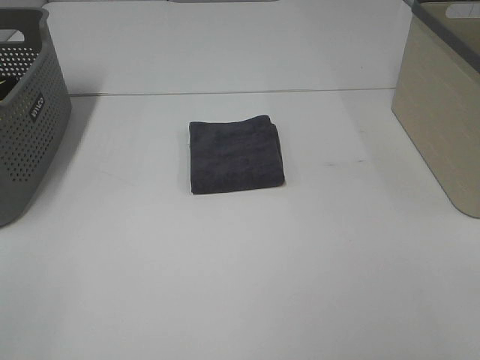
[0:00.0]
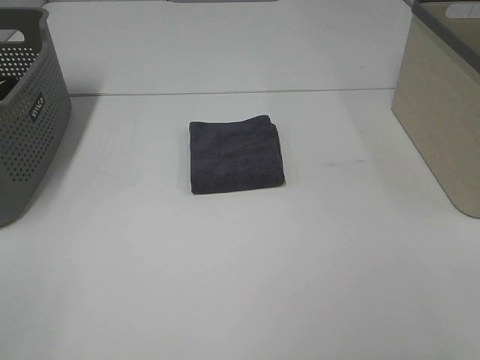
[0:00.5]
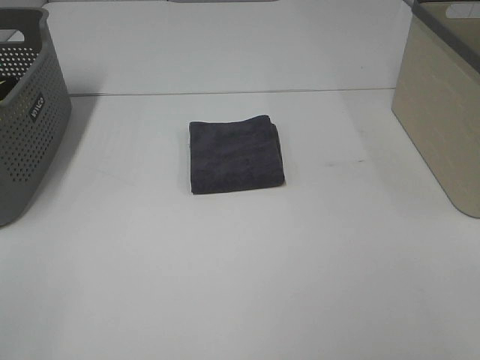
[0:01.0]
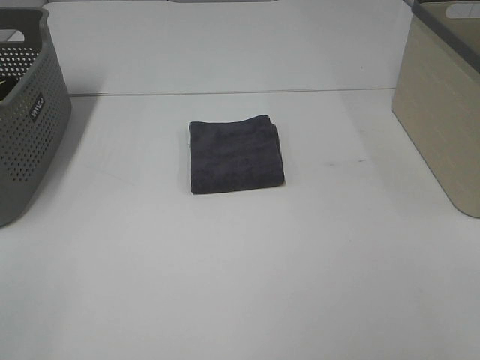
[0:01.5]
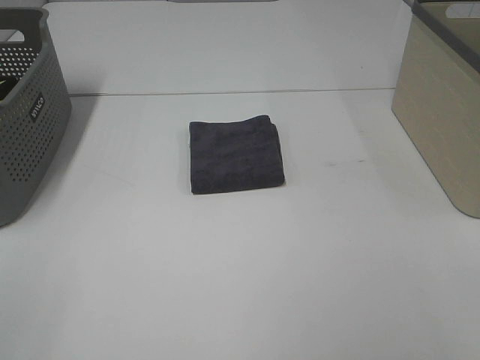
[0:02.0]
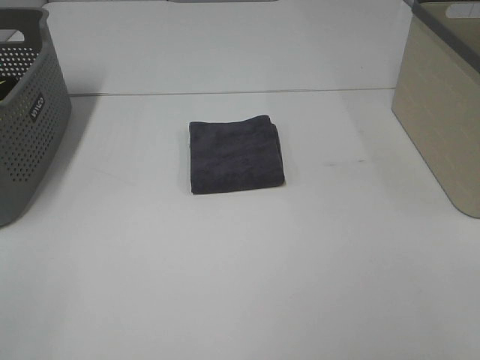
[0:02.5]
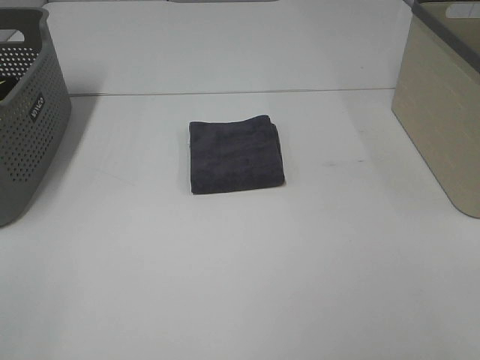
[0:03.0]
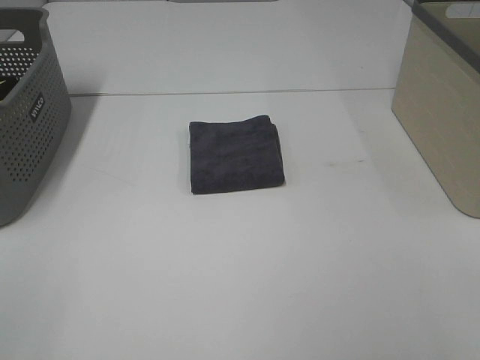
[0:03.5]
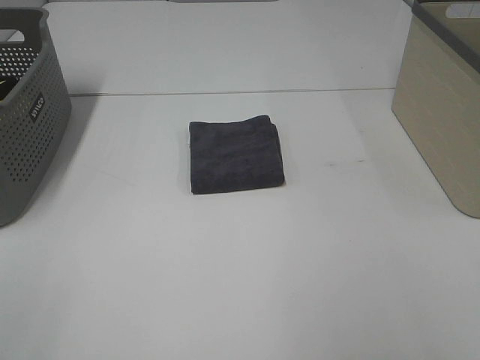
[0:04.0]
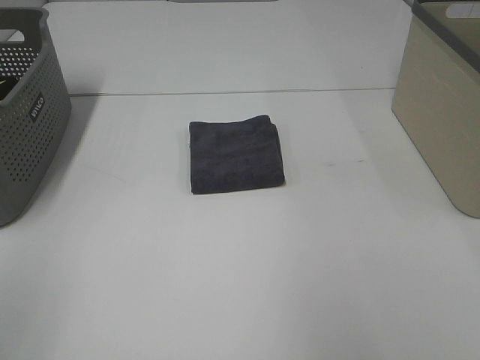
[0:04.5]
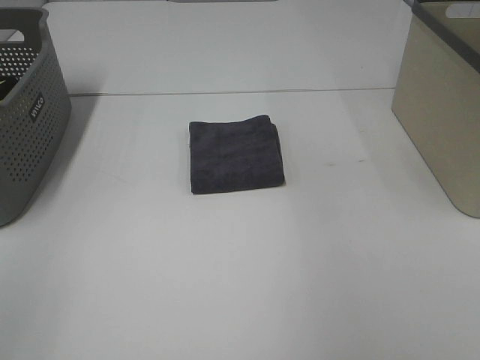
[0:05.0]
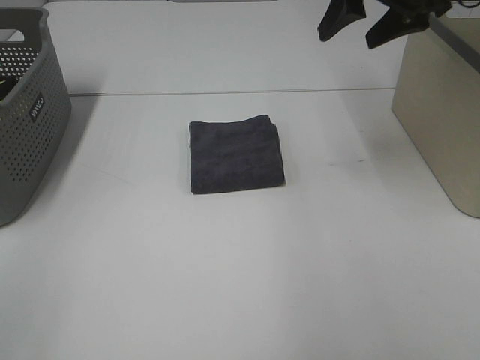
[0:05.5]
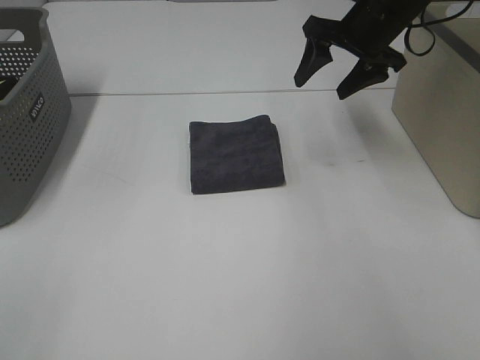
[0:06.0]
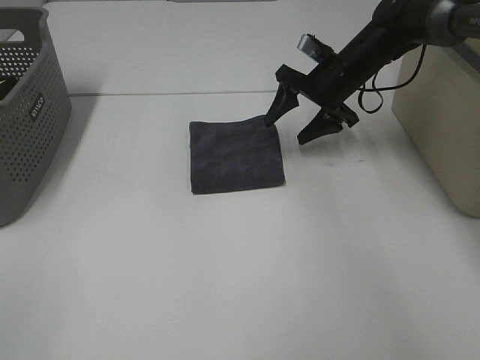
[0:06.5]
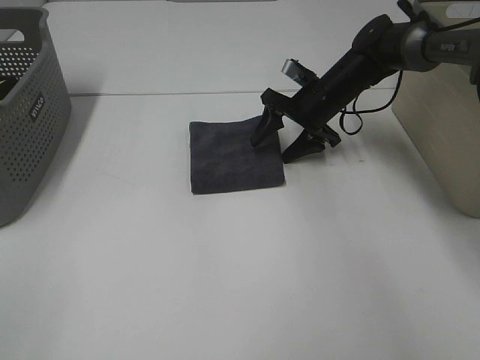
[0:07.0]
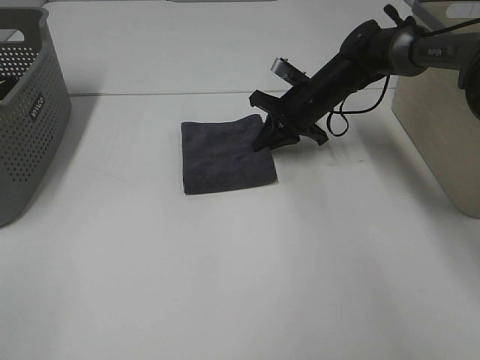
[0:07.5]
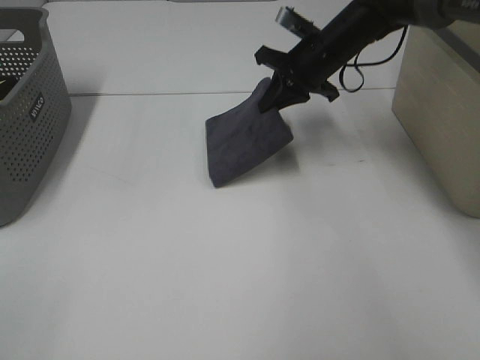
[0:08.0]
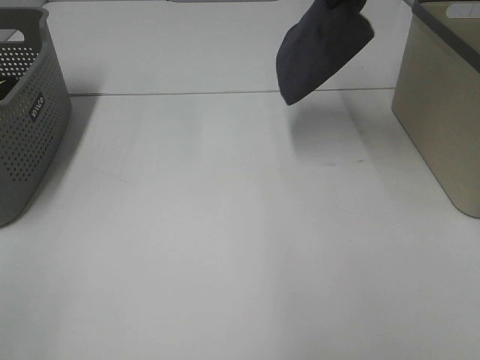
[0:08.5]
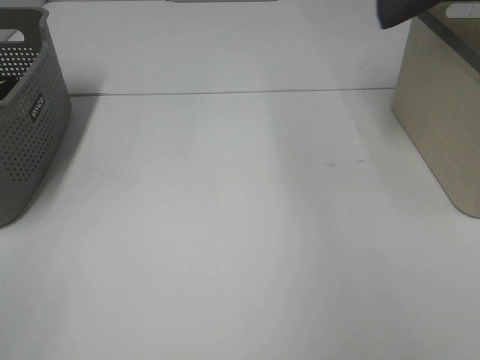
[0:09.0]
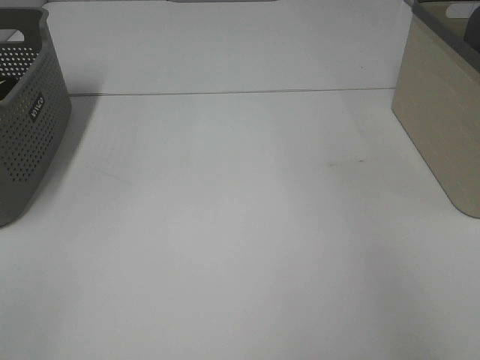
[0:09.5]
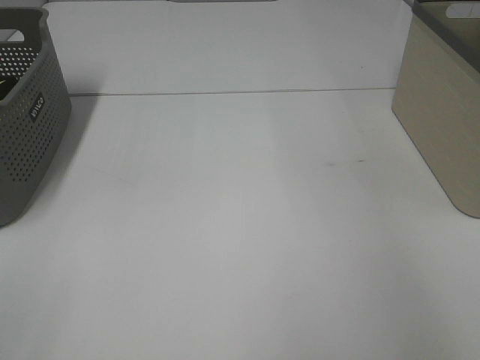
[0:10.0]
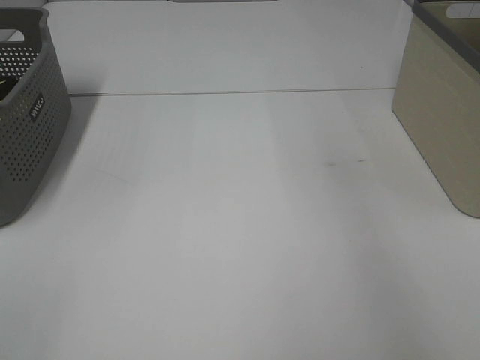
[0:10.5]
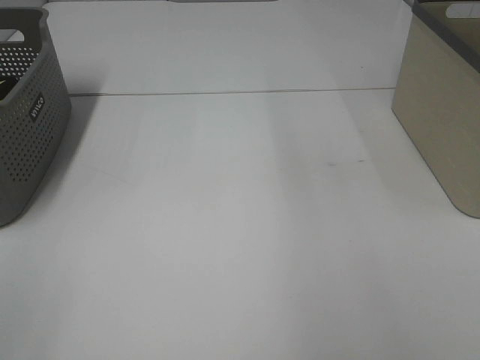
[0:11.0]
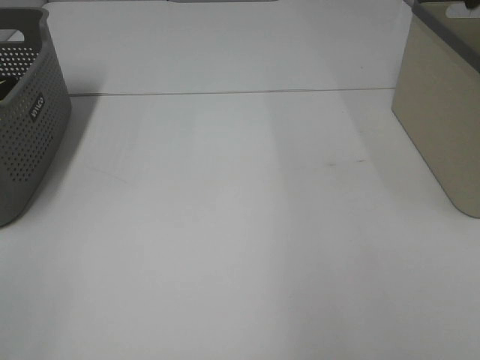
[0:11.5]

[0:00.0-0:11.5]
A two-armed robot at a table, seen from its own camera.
Step, 0:00.0 to 0:07.5: Right hand: grab the folded grey towel.
Step, 0:08.0 to 0:10.0: Right hand: place the grey towel in right basket.
0:00.0 to 0:02.0: Both grippers stay put.
0:04.0 to 0:06.0: The right gripper shifts roughly 40 cm forward.
0:06.0 to 0:07.5: The right gripper heads downward and to the left, covering about 15 cm, and closes.
0:07.5 to 0:09.5: The right gripper is displaced upward and to the right by approximately 40 cm.

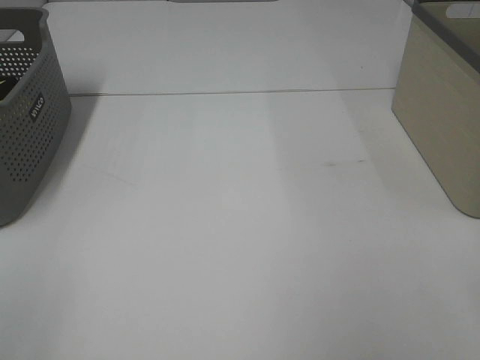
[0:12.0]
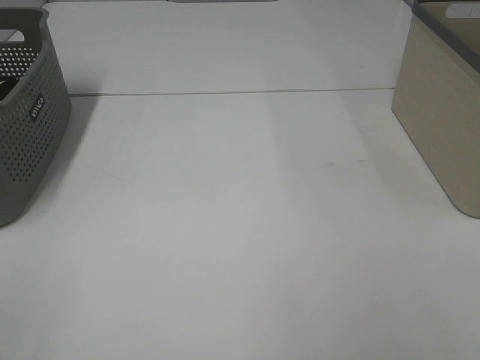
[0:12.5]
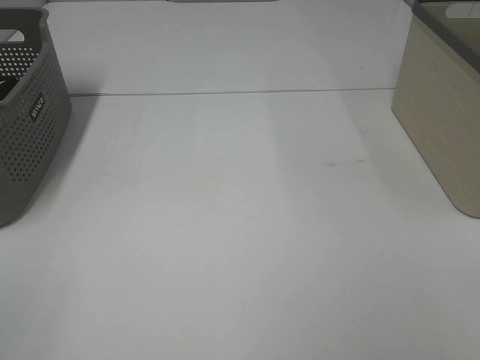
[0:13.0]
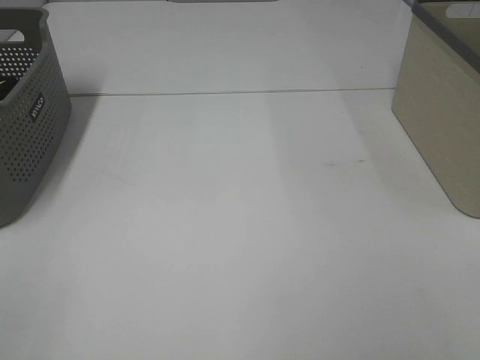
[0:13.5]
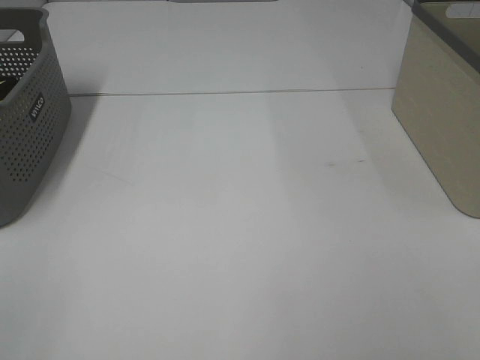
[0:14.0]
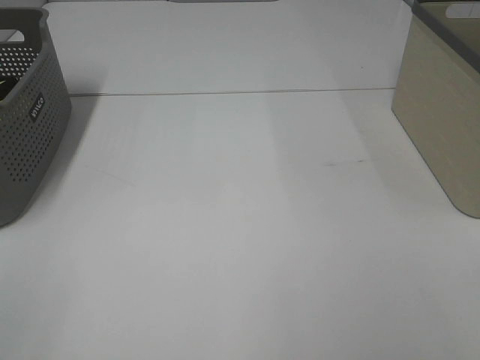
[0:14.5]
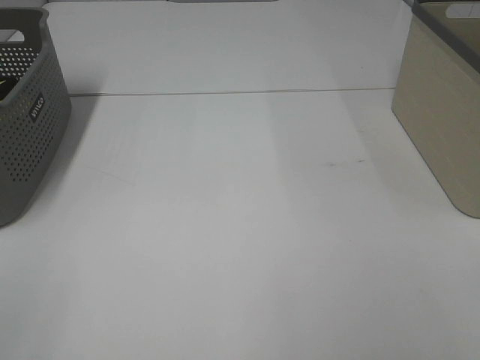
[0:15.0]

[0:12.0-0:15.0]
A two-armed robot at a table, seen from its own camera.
0:13.5 to 0:15.0: The two grippers keep their place.

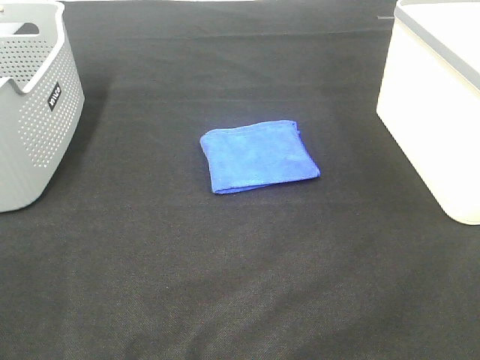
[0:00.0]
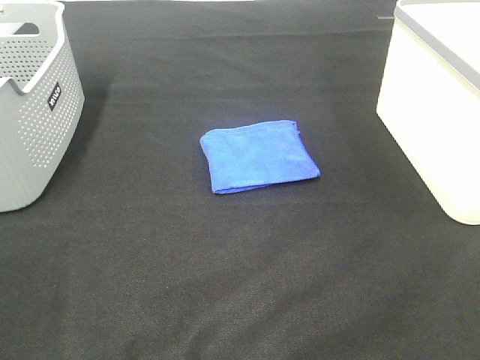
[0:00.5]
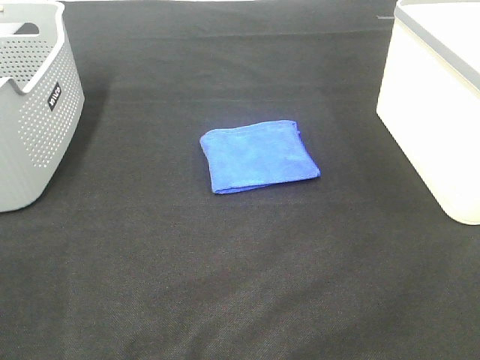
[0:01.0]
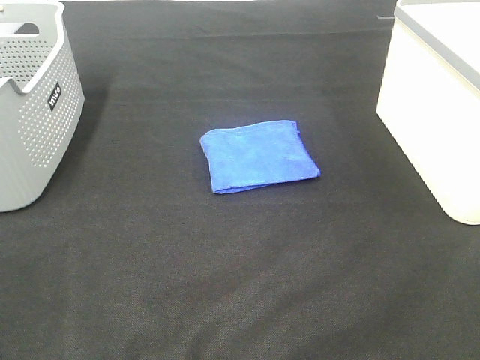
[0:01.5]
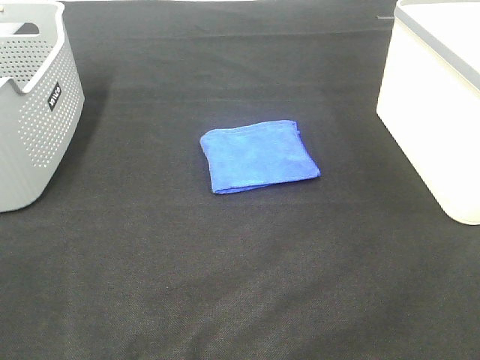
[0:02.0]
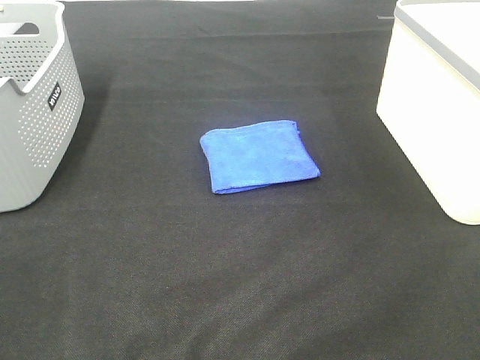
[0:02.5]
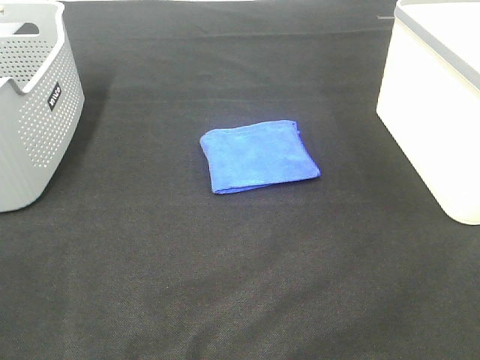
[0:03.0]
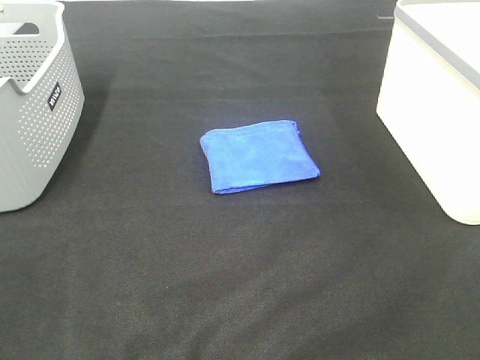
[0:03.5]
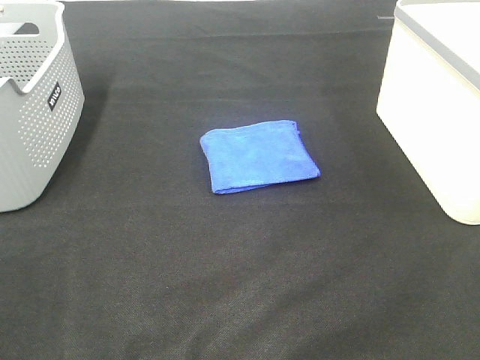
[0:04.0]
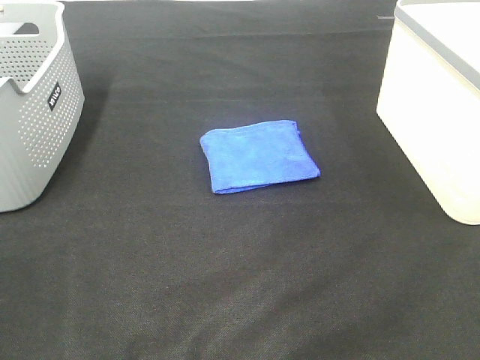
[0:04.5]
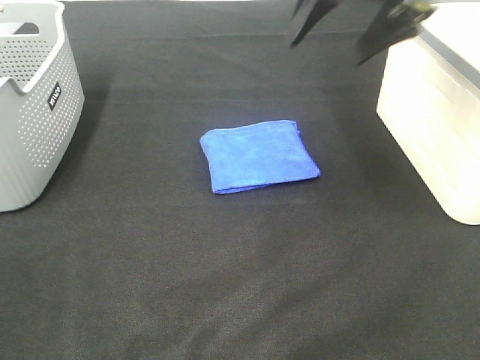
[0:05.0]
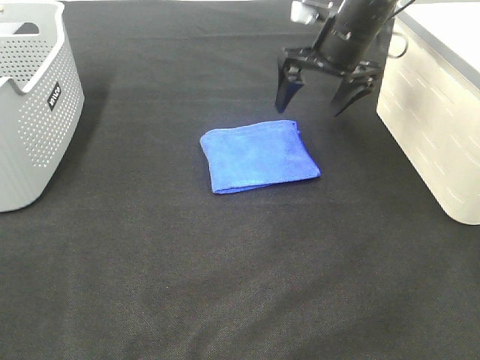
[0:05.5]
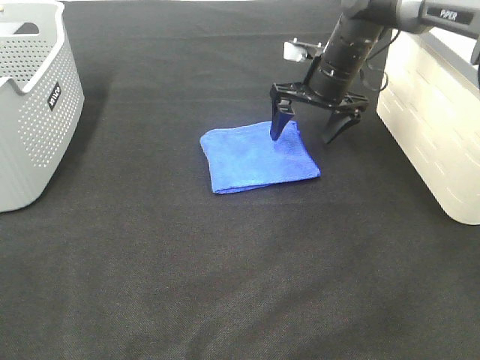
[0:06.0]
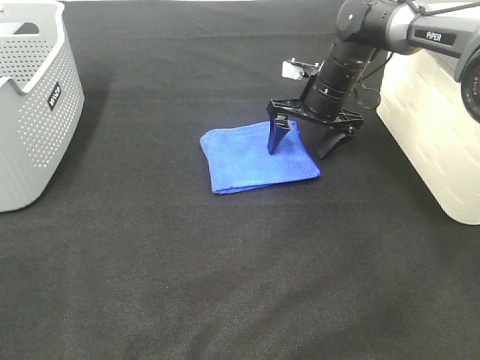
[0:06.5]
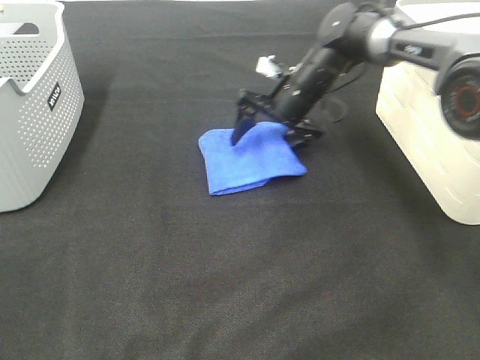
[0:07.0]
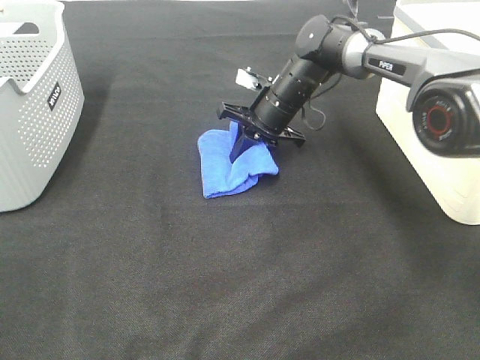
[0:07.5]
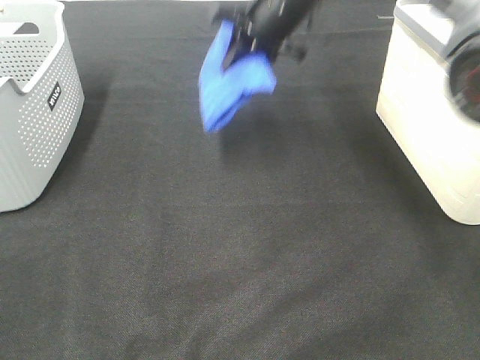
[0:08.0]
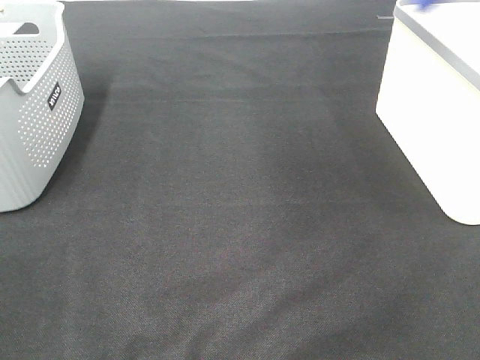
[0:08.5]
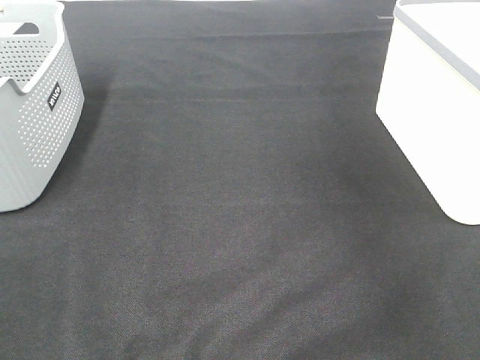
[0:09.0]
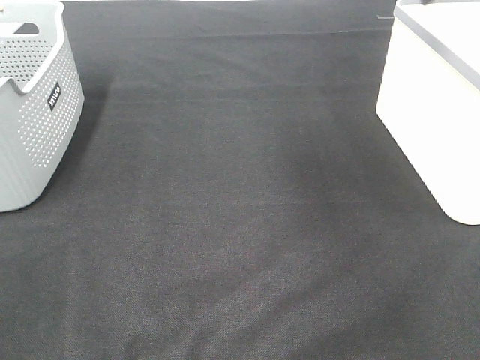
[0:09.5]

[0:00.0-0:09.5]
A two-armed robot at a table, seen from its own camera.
Step, 0:00.0 to 0:07.0: Right hand: grab the folded blue towel.
Step, 0:07.5 to 0:09.0: Right hand: place the blue towel in right basket.
0:00.0 to 0:02.0: Neither gripper changes place.
0:04.0 to 0:05.5: The right gripper travels forward and downward by approximately 40 cm.
0:05.5 to 0:07.5: The right gripper goes roughly 15 cm downward and to the left, and closes its fingers.
0:07.5 to 0:09.5: The right gripper is displaced upward and to the right by approximately 35 cm, and opens.

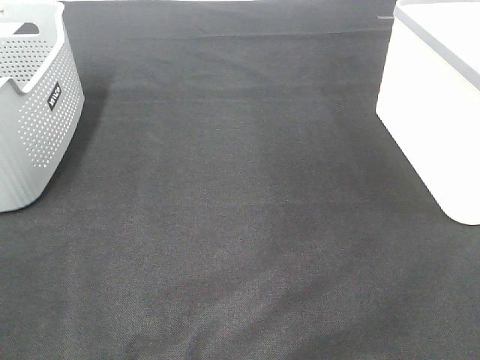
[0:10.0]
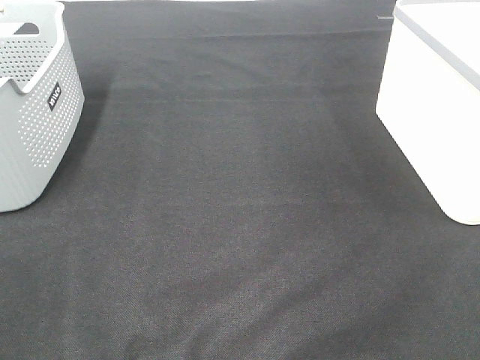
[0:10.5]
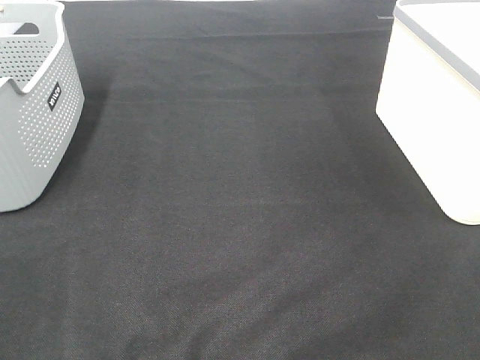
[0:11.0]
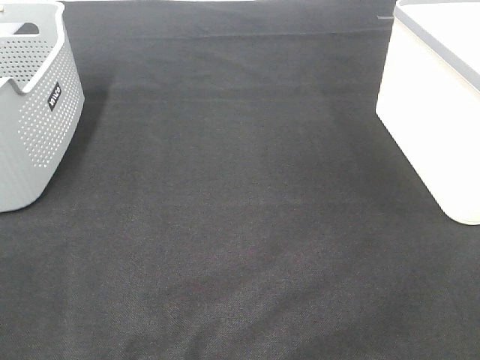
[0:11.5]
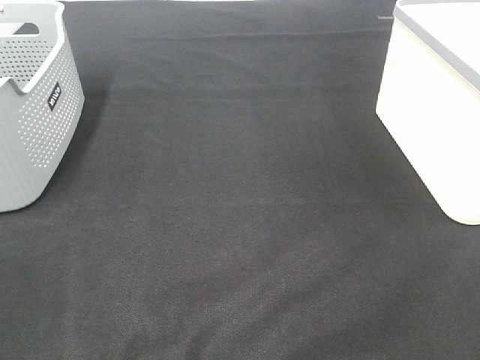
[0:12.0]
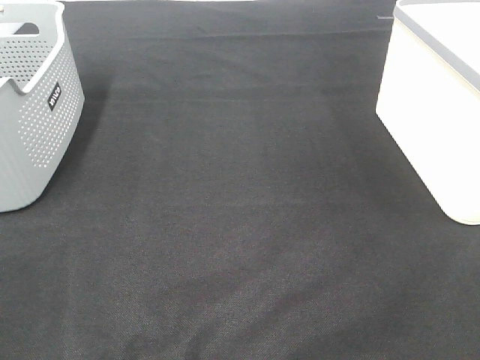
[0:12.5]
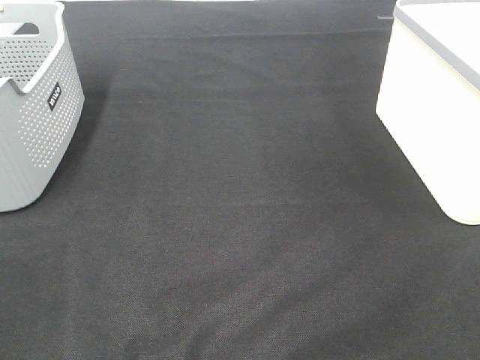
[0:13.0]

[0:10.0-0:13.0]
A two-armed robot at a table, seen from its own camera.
0:11.5 to 0:13.0: The two grippers keep their place.
